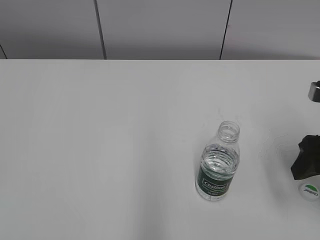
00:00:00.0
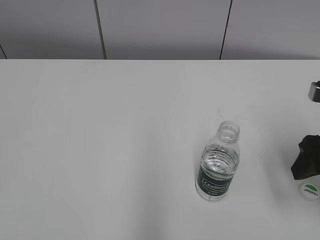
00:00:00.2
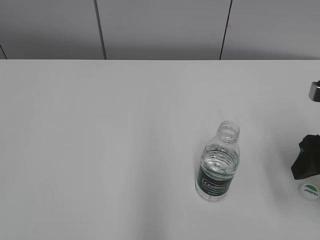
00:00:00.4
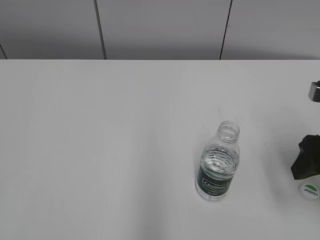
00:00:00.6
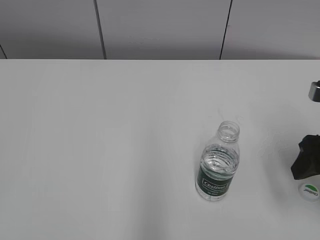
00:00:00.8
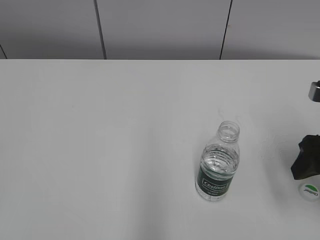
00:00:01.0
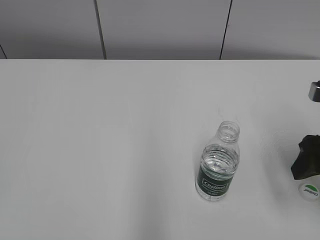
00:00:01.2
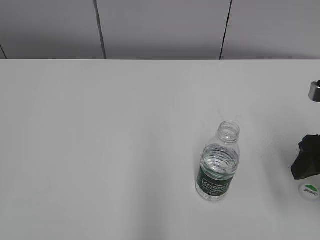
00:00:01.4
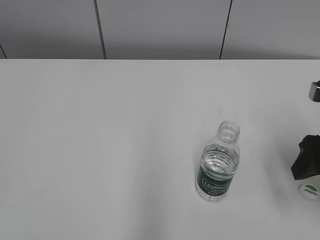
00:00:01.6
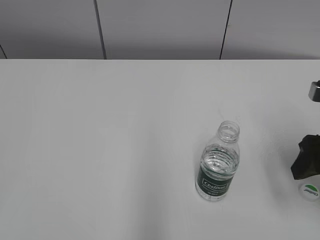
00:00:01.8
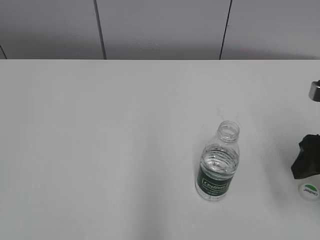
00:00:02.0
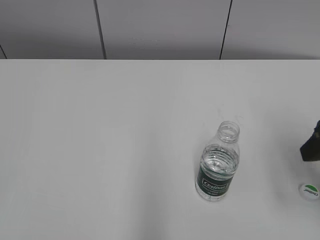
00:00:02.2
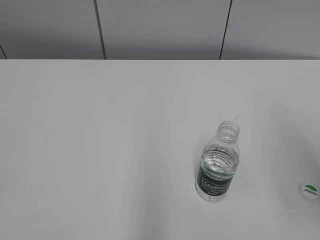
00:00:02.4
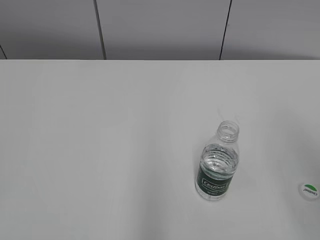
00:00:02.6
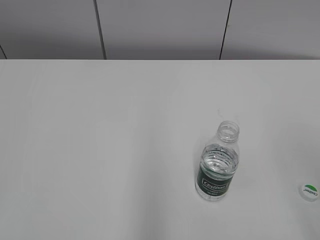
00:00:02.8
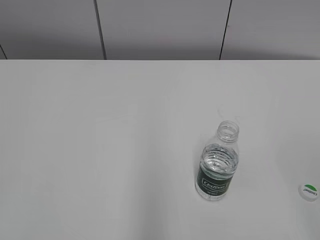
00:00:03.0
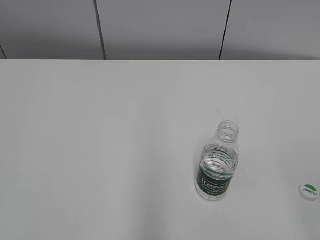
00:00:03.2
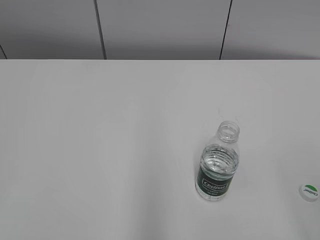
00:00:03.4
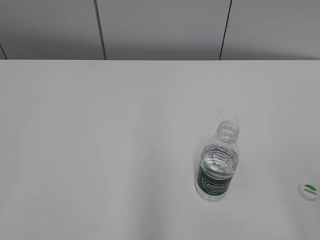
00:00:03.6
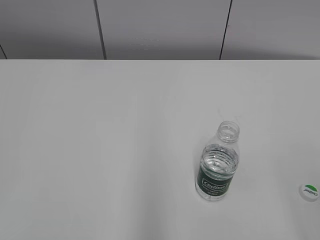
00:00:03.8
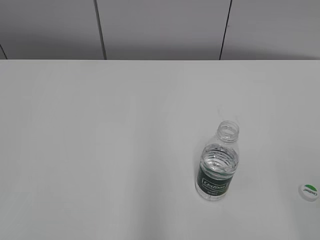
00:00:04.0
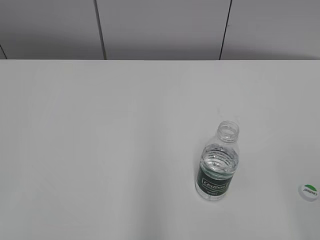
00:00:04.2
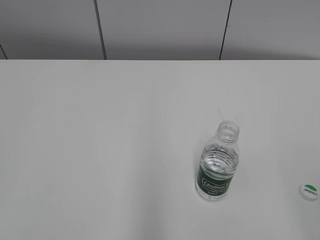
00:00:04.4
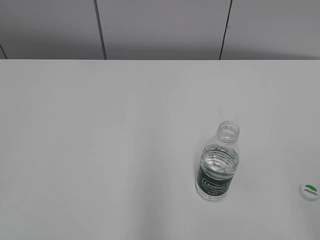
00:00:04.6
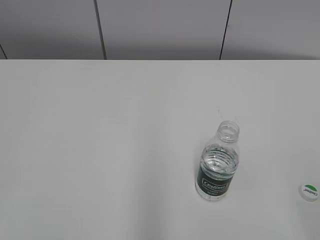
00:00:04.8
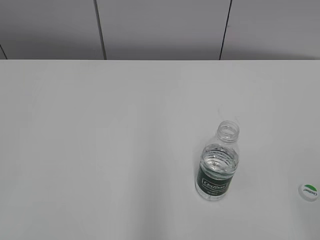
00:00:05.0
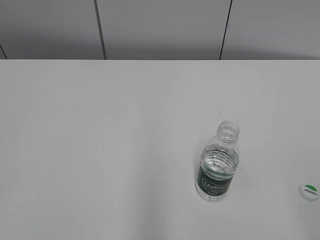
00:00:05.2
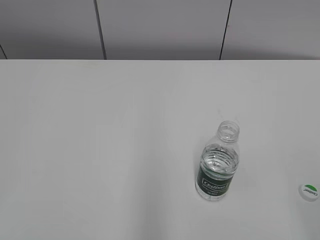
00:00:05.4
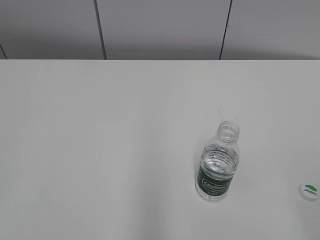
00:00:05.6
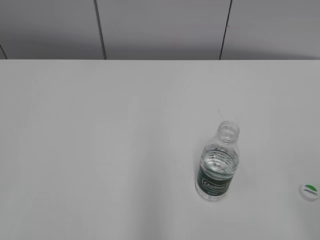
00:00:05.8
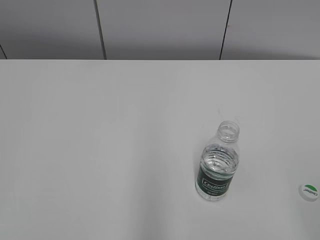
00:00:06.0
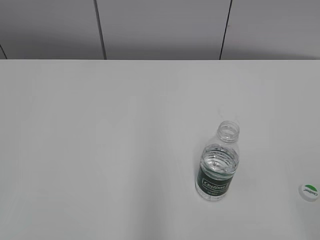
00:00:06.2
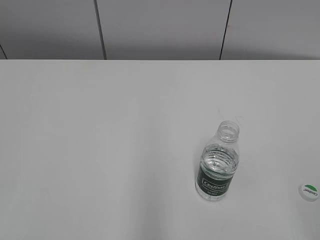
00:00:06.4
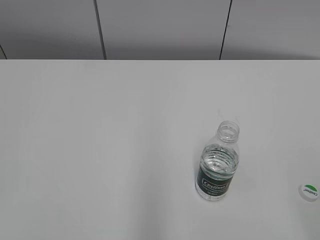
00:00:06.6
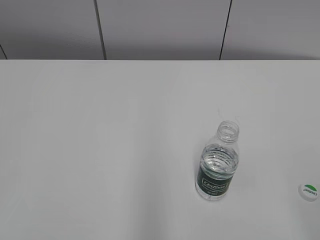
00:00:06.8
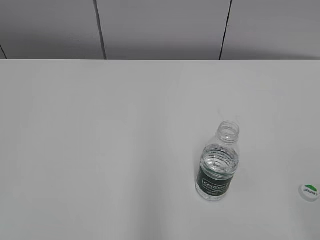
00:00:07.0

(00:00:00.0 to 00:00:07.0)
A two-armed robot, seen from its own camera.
00:00:01.4 - 00:00:02.8: The right gripper goes about 20 cm backward and upward.
00:00:05.6 - 00:00:07.0: Neither gripper changes place.

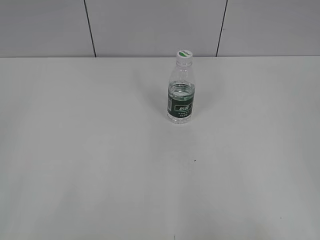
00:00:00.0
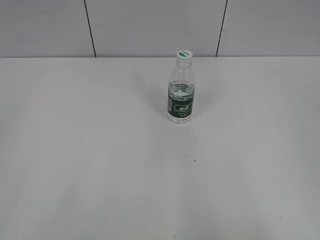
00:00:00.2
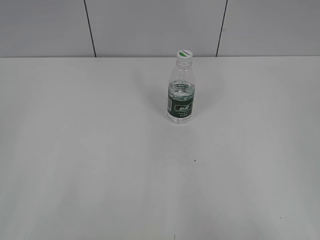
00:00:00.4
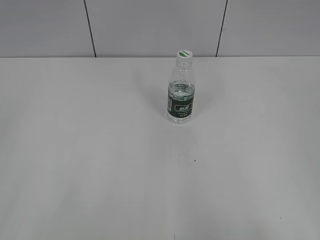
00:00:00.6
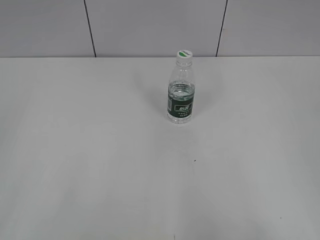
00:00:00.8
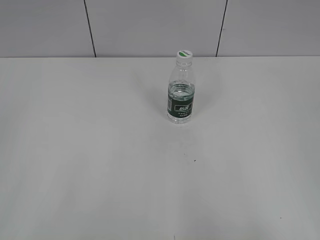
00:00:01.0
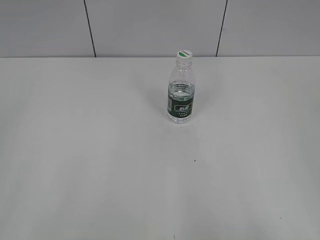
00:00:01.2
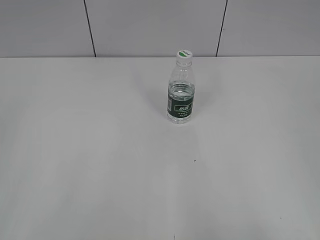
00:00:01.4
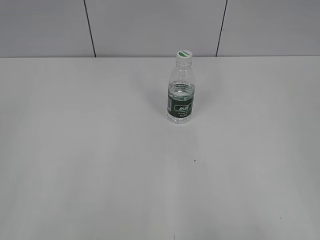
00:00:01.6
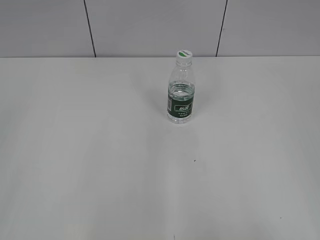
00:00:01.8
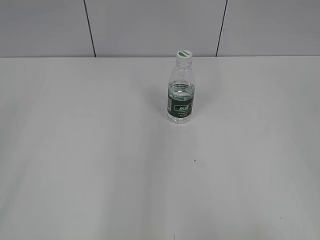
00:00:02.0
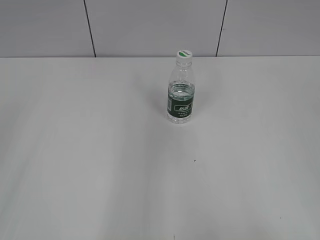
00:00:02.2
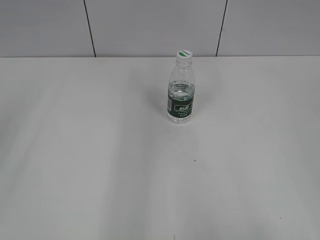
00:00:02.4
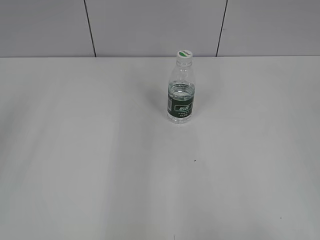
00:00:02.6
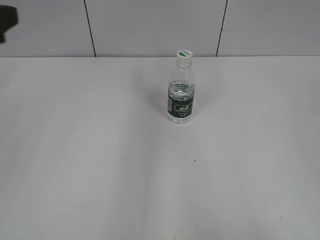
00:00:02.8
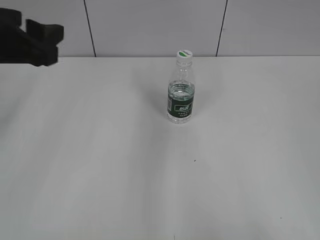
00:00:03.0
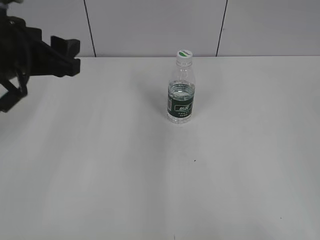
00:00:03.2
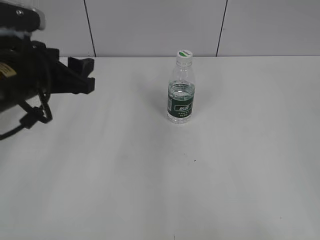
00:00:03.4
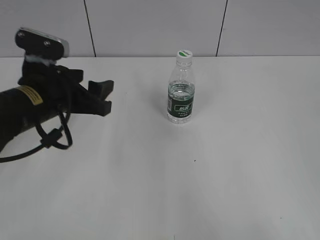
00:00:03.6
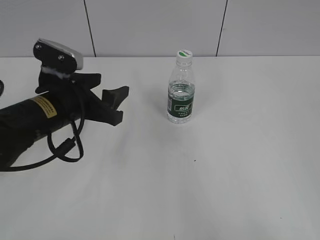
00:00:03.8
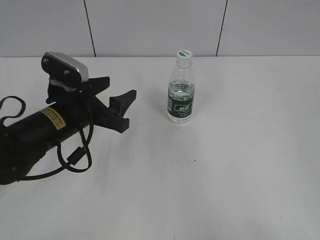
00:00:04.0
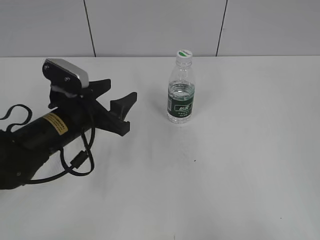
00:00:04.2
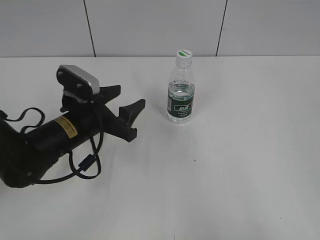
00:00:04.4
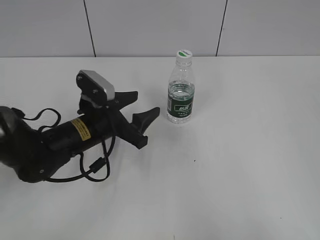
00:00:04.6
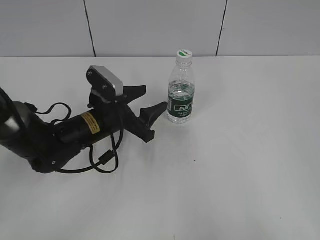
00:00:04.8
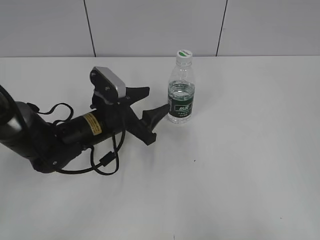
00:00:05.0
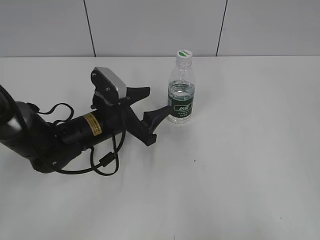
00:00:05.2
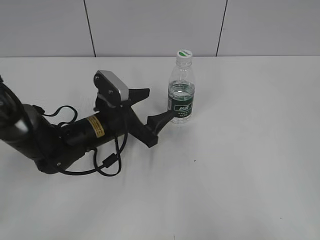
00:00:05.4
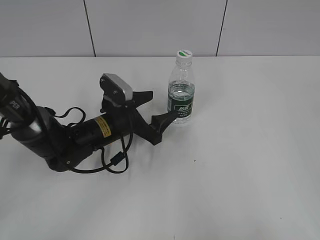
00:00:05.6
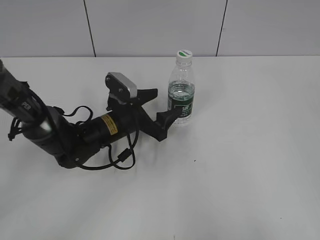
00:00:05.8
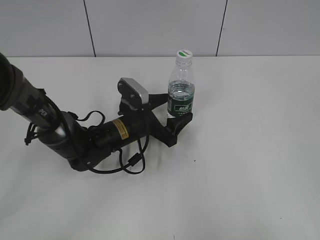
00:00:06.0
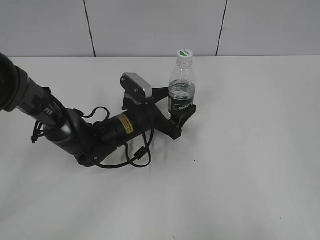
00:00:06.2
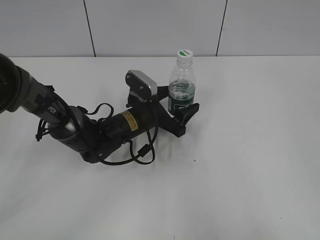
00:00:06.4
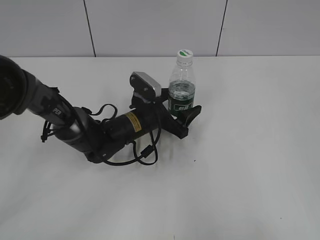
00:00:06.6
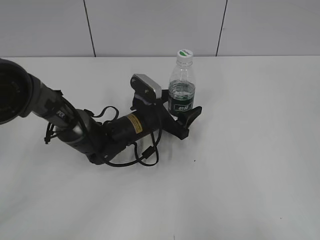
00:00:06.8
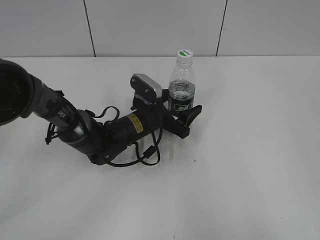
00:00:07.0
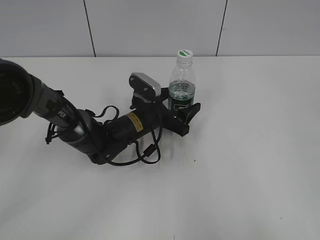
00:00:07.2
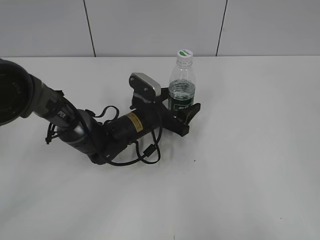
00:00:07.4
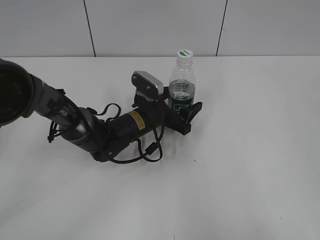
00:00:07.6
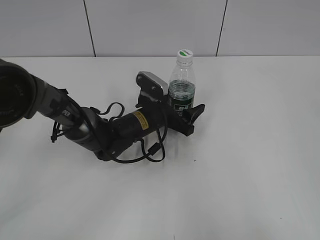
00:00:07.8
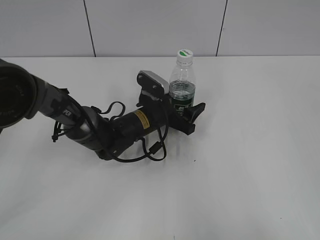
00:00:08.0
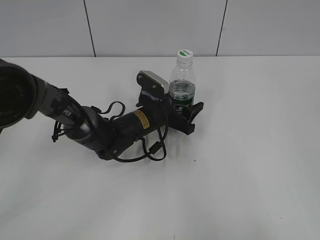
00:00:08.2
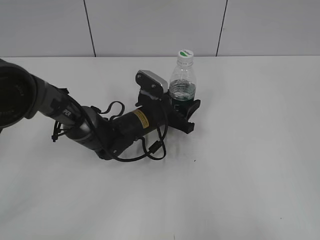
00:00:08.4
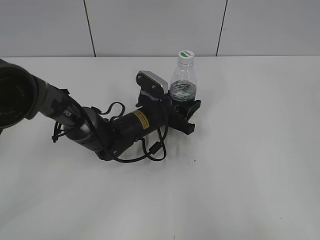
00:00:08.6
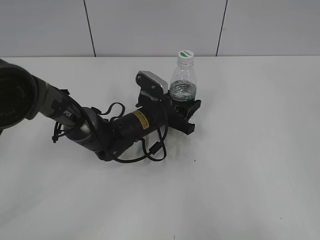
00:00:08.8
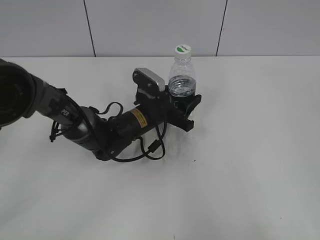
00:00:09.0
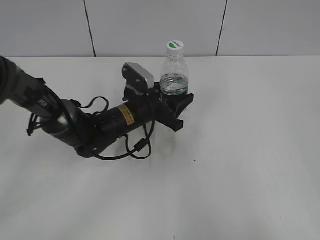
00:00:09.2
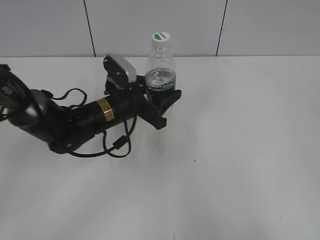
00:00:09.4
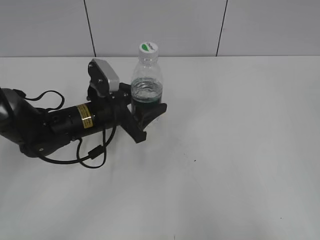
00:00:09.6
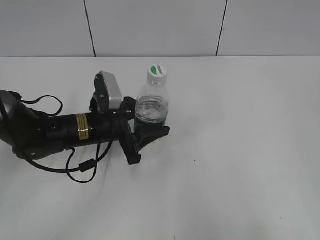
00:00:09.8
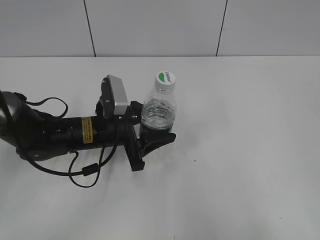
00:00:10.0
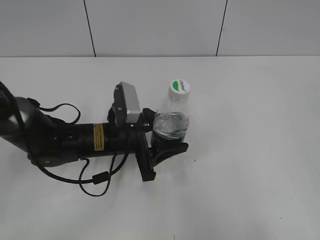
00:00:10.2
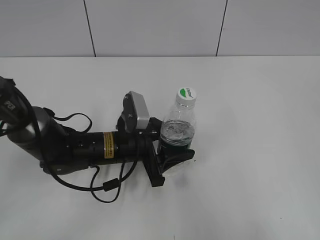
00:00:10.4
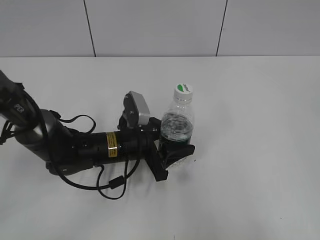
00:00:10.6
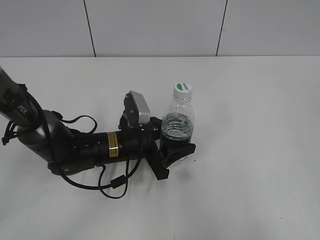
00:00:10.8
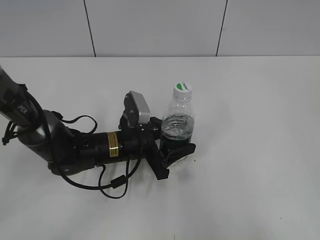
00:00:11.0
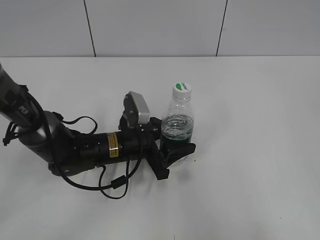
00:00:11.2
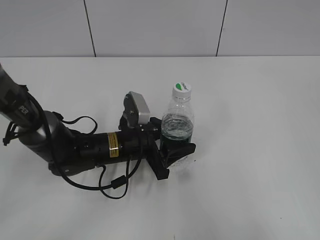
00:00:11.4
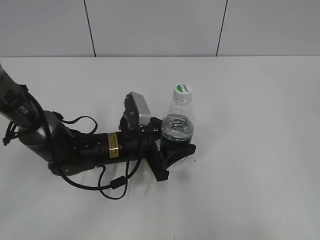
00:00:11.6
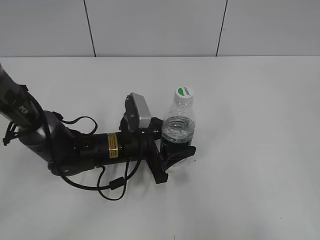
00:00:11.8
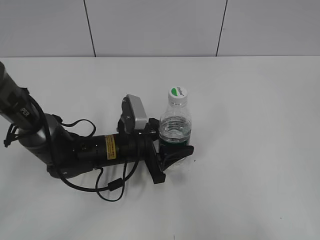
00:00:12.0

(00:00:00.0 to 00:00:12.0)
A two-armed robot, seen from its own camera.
Step, 00:00:00.0 - 00:00:08.4: Grasp the bottle and move it to the center of the table with the left gripper.
00:00:01.6 - 00:00:03.0: The left gripper shifts roughly 25 cm forward.
00:00:03.0 - 00:00:04.4: The left gripper travels downward and to the right by some 20 cm.
00:00:04.4 - 00:00:06.0: The left gripper shifts roughly 10 cm to the right, downward and forward, and opens up.
00:00:06.0 - 00:00:07.6: The grippers stay close to where they were, moving slightly.
00:00:07.6 - 00:00:09.0: The left gripper closes its fingers.
00:00:09.0 - 00:00:10.4: The left gripper moves backward, about 10 cm.
00:00:10.4 - 00:00:12.0: The grippers stay close to where they were, moving slightly.

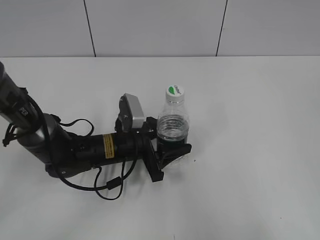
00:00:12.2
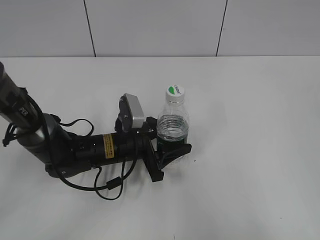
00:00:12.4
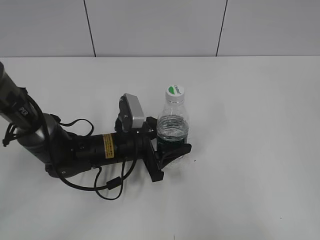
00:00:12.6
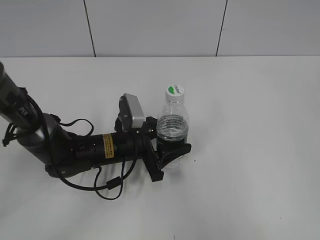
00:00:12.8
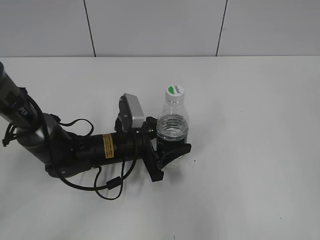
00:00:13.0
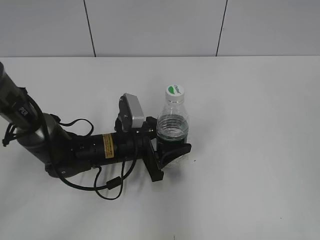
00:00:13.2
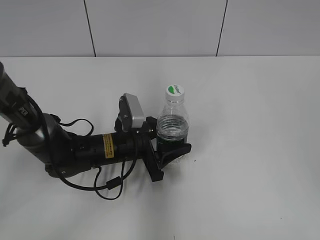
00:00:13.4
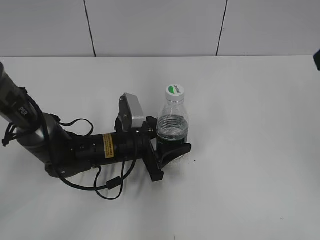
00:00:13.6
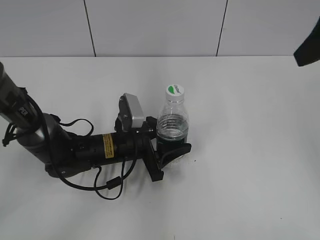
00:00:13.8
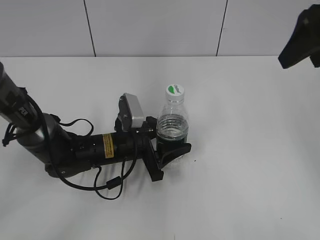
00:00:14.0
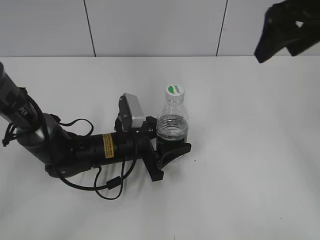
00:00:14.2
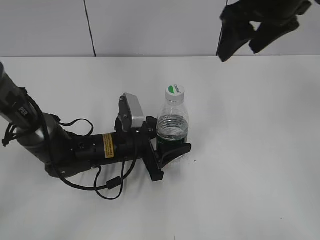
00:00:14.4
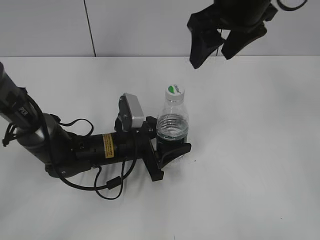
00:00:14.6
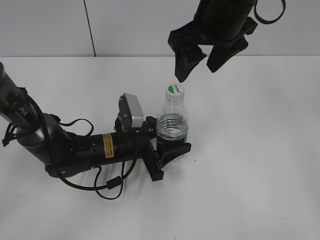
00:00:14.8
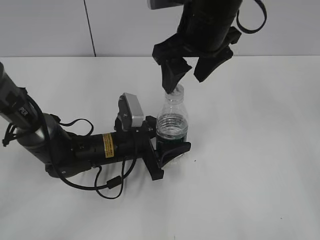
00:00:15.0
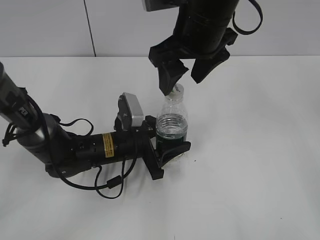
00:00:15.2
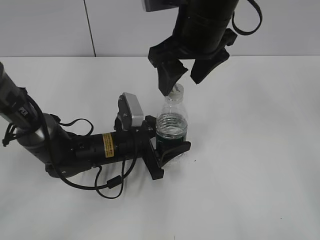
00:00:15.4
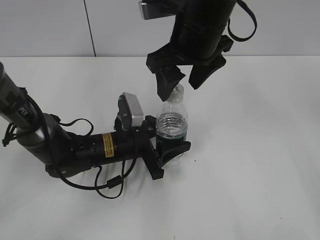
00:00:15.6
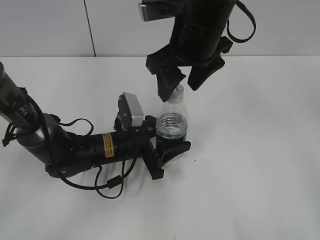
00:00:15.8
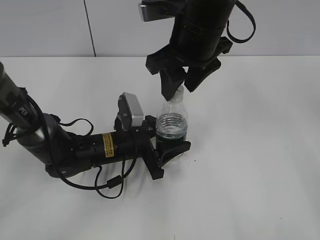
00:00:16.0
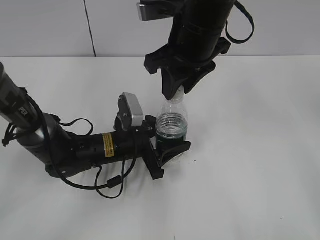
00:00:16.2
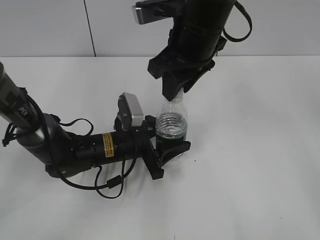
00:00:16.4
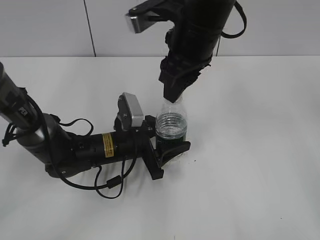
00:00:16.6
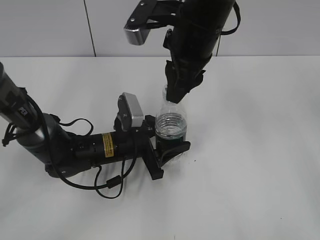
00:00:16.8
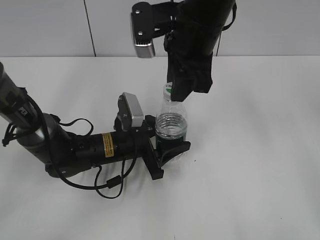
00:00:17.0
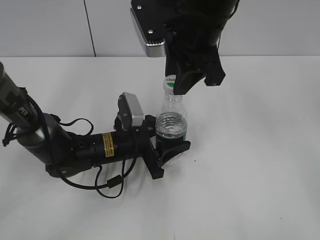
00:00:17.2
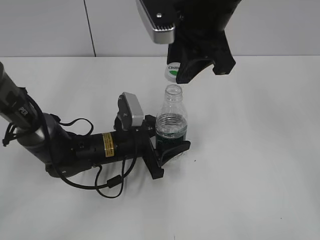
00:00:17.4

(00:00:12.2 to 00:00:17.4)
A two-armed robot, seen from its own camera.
00:00:12.2 - 00:00:14.0: The right gripper goes roughly 30 cm forward.
00:00:14.0 - 00:00:15.6: The right gripper is displaced to the left by approximately 20 cm.
00:00:15.6 - 00:00:17.4: The right gripper closes up.
